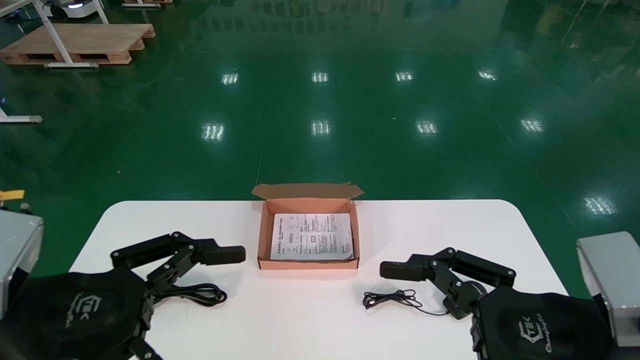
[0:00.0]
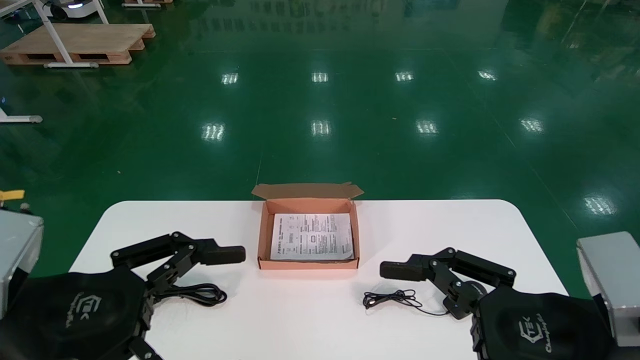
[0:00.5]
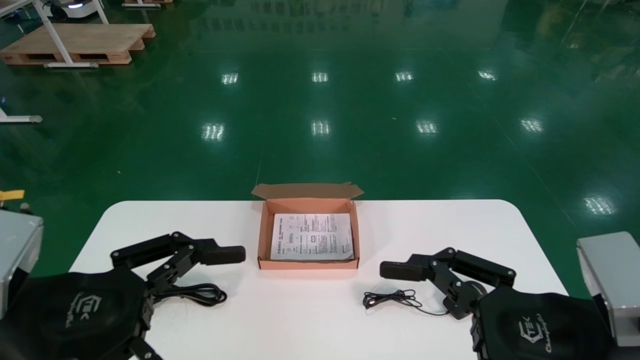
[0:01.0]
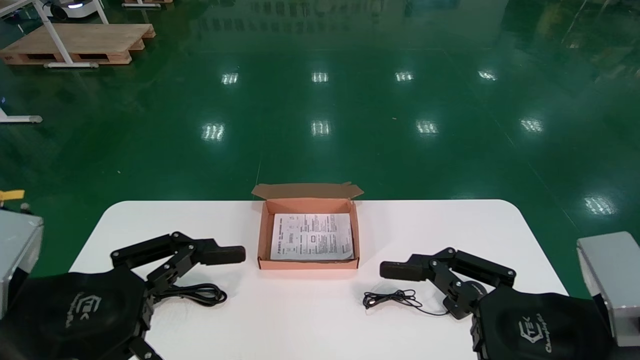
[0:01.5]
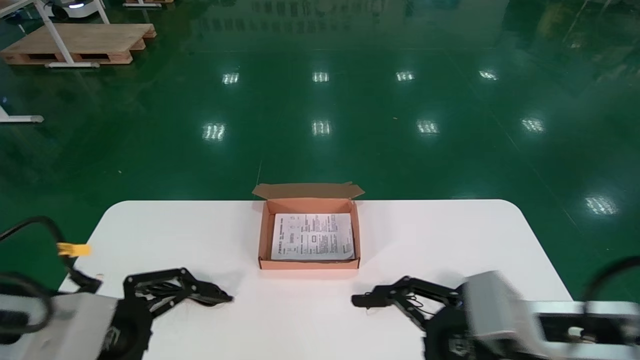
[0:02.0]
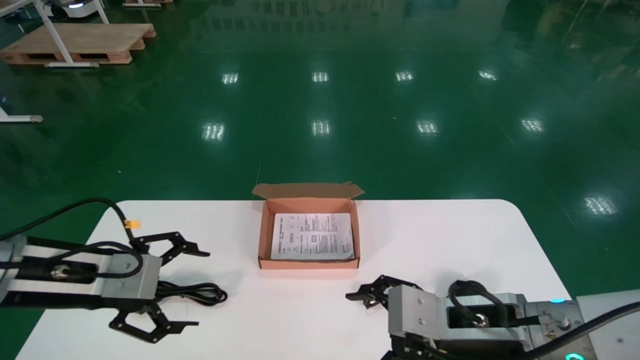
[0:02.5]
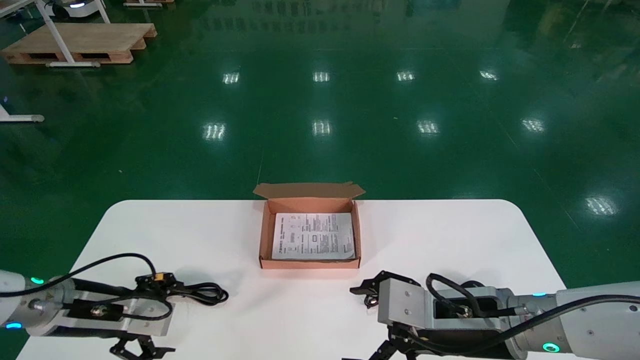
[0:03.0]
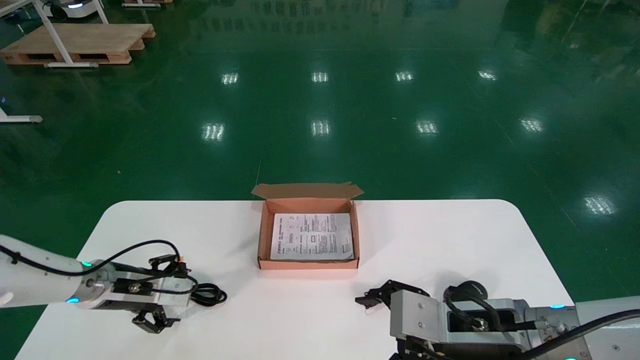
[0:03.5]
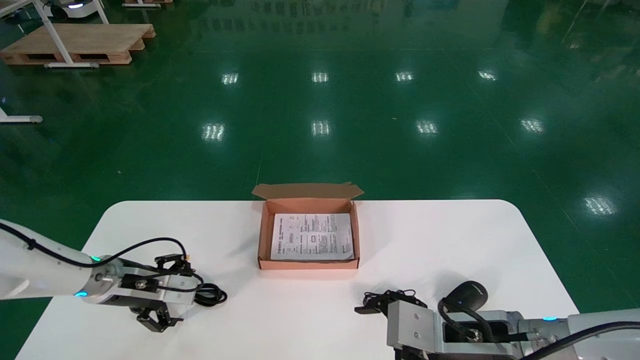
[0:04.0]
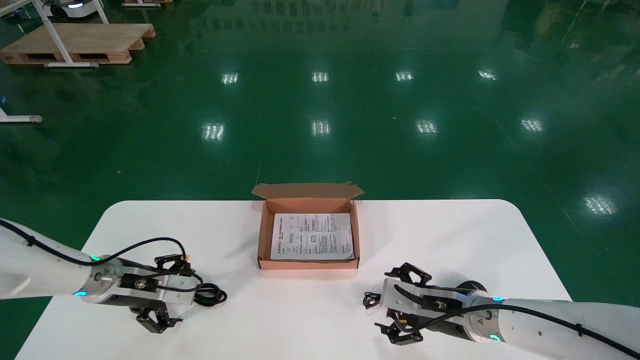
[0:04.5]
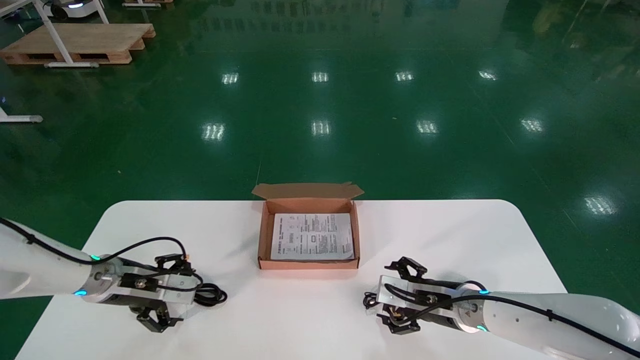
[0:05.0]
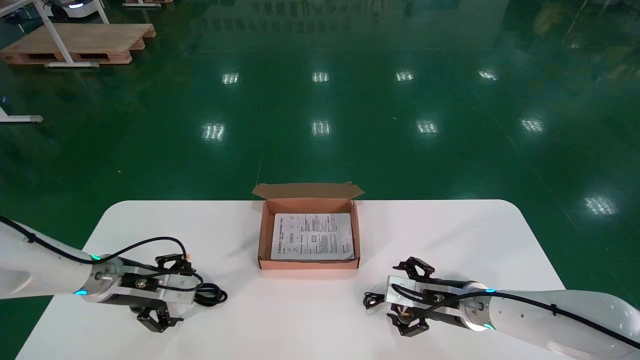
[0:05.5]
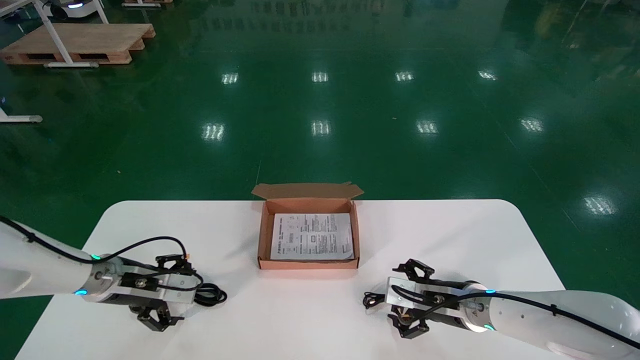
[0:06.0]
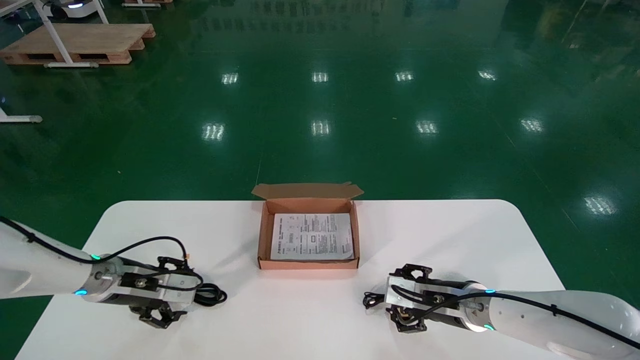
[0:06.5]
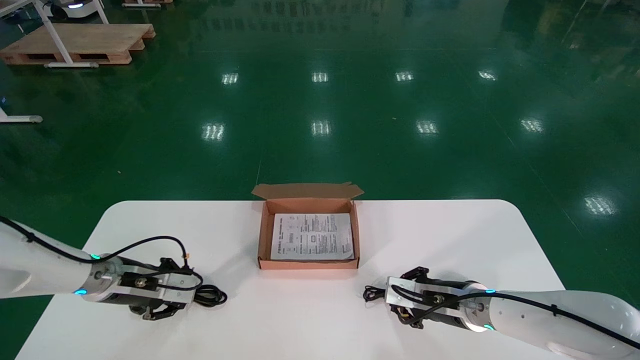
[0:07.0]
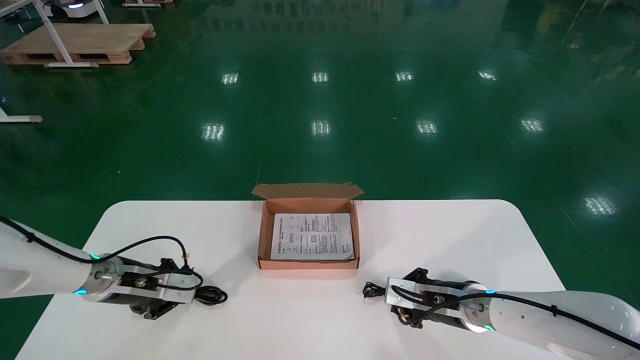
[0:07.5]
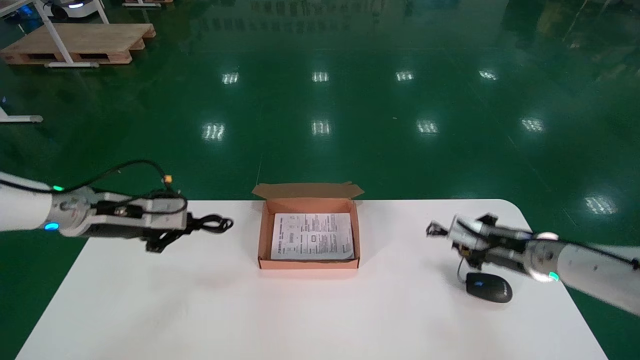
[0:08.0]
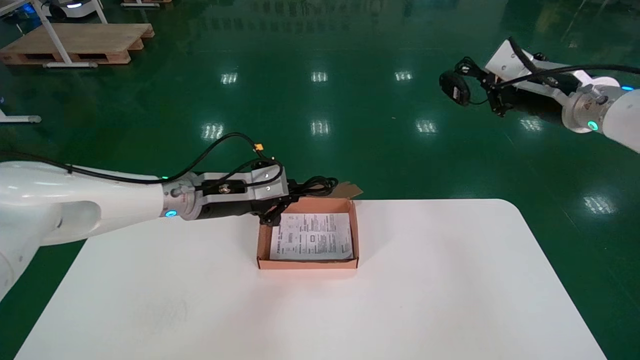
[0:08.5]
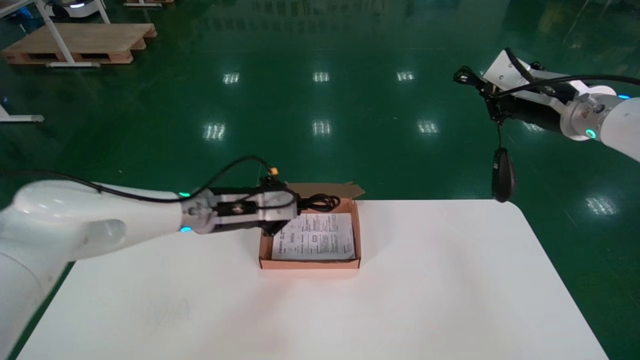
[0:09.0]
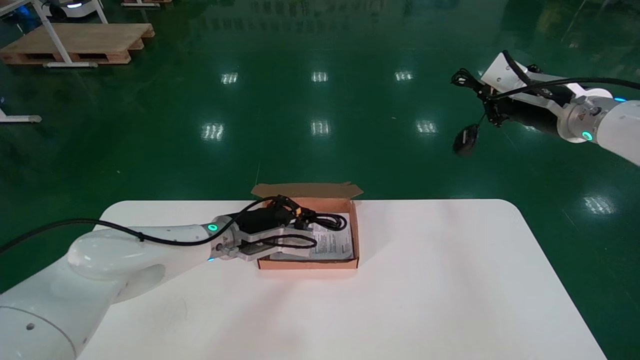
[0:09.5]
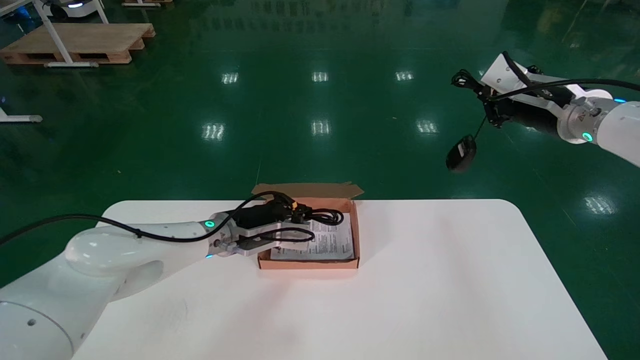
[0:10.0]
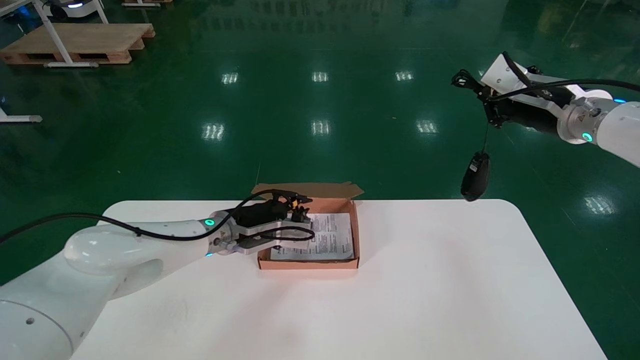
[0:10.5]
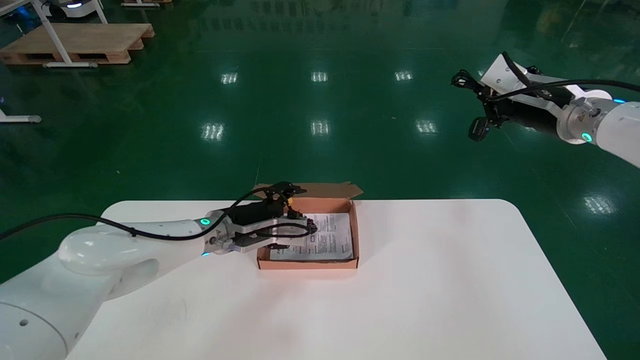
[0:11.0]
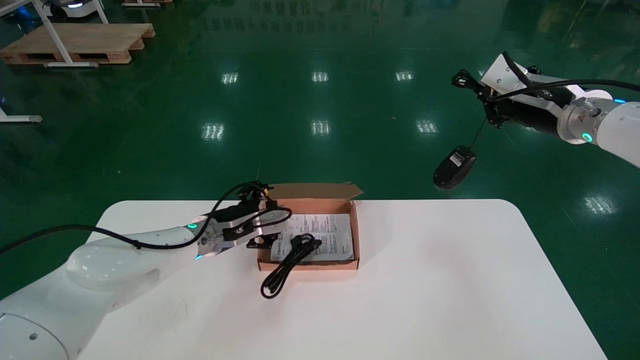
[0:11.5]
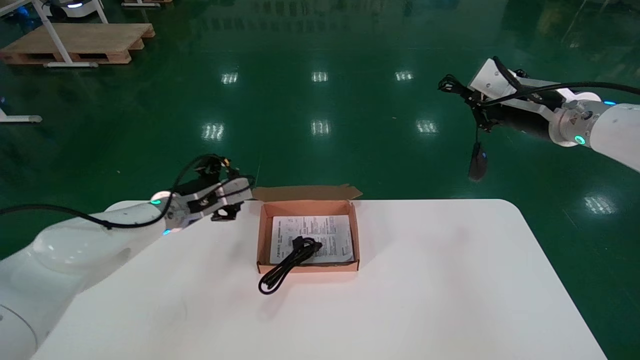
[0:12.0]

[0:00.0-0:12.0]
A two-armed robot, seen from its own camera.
Step, 0:02.0 to 0:07.0: Simultaneously pick up the mouse and power cord from the accessory packaging area.
0:00.0 to 0:02.0: The two grippers go about 5 cm forward.
0:02.0 to 0:04.0: The left gripper goes approximately 20 cm forward and downward. Meanwhile the right gripper shifts roughly 10 cm forward and downward.
0:04.0 to 0:06.0: The right gripper moves forward, approximately 15 cm.
0:06.0 to 0:08.0: The left gripper moves upward, some 10 cm, and closes up. The right gripper moves upward and to the right, approximately 15 cm, and closes up.
0:08.0 to 0:10.0: The right gripper moves upward, some 20 cm, while the left gripper shifts approximately 15 cm to the right.
0:10.0 to 0:12.0: The left gripper heads to the left, covering roughly 10 cm, and opens up.

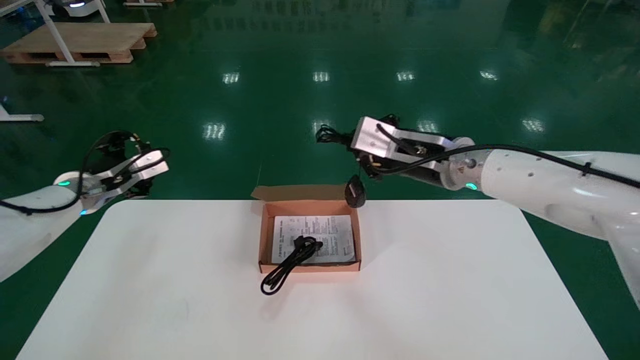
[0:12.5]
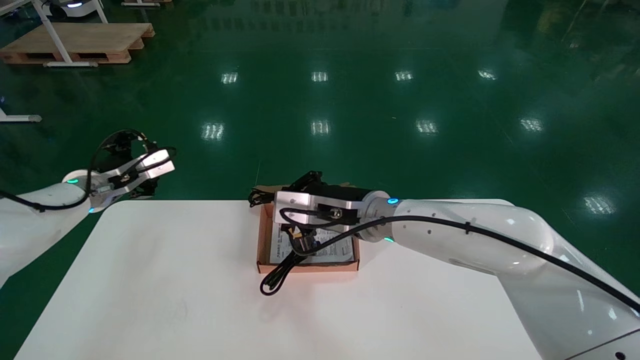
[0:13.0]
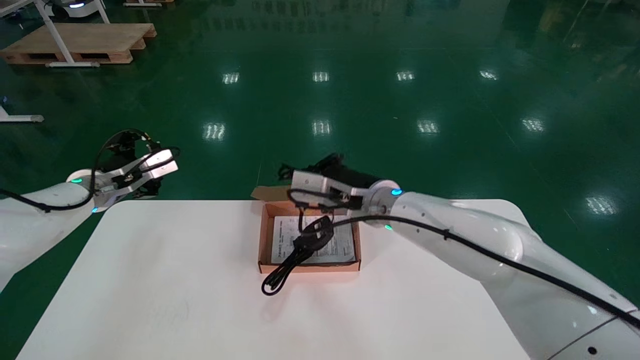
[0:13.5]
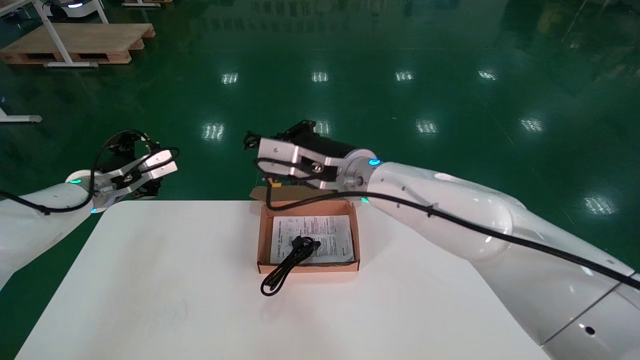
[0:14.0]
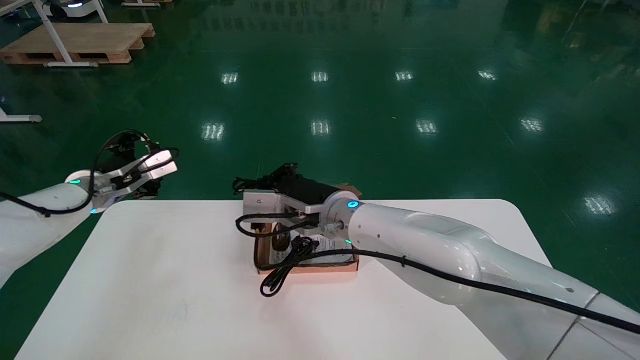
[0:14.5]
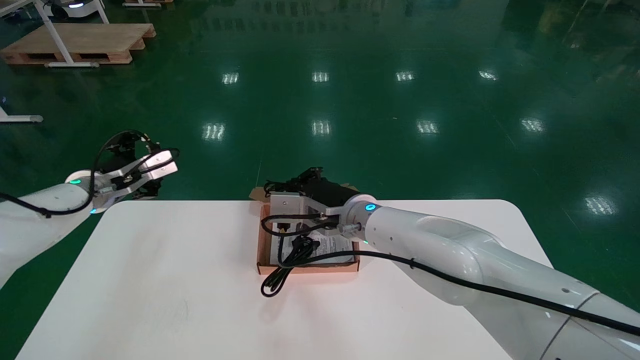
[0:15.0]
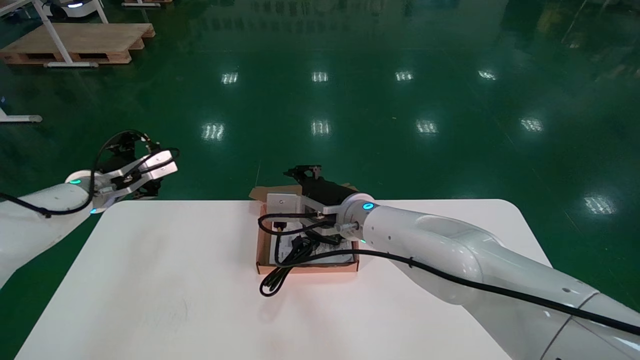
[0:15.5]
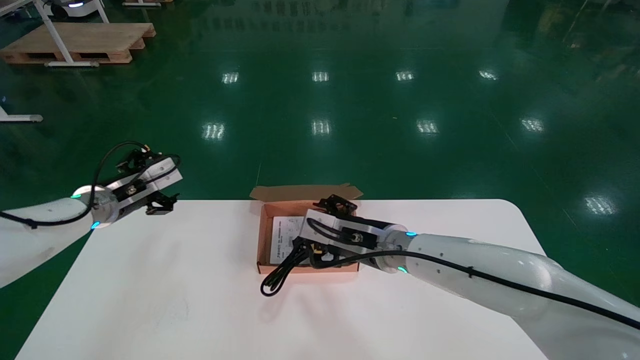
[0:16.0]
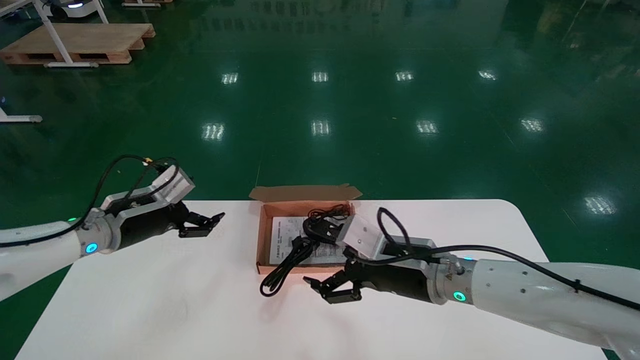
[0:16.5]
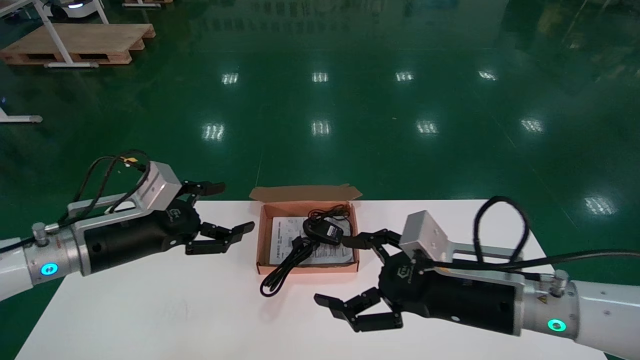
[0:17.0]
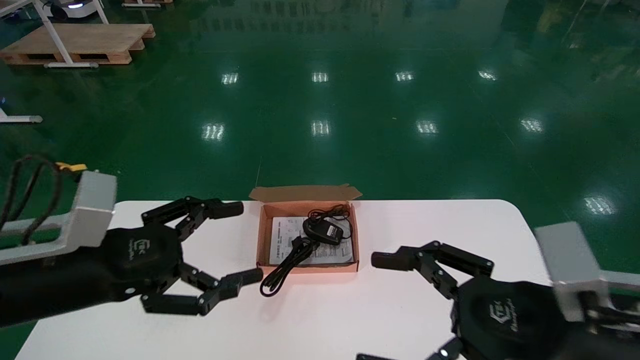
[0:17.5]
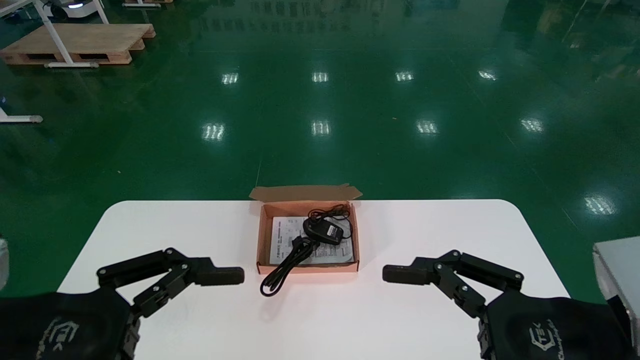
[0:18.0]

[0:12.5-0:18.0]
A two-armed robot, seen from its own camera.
Step, 0:12.5 to 0:15.0: Place the mouse and power cord into the box.
0:12.5 to 0:14.5: The right gripper heads to the left and downward, covering some 15 cm.
0:14.5 to 0:16.0: The right gripper moves to the right and downward, approximately 10 cm, and opens.
0:16.0 to 0:18.0: The left gripper goes roughly 30 cm backward; the right gripper moves backward and to the right, some 30 cm.
